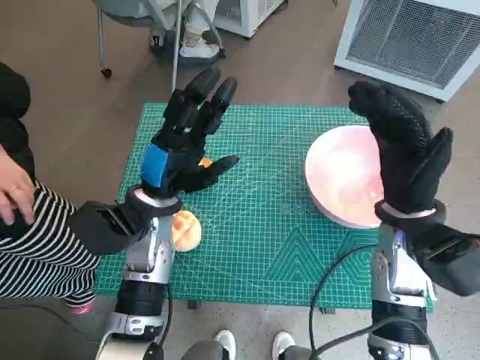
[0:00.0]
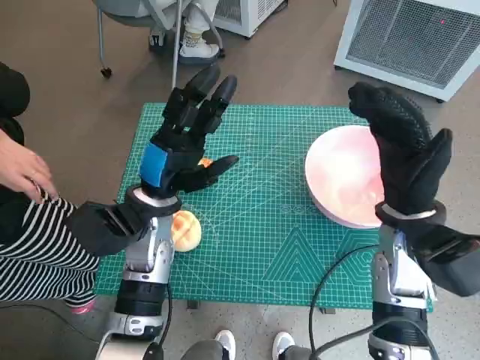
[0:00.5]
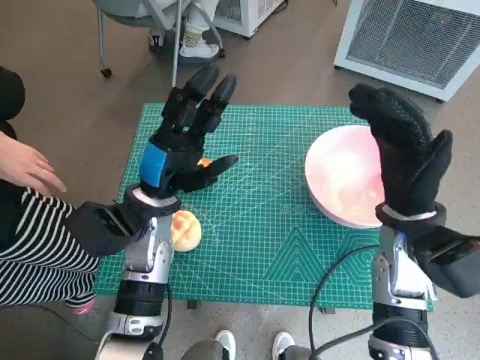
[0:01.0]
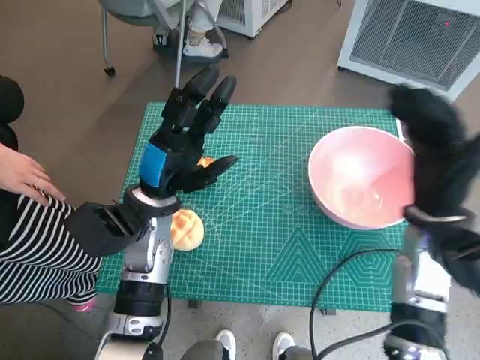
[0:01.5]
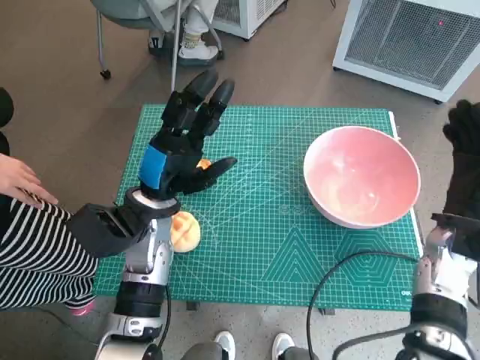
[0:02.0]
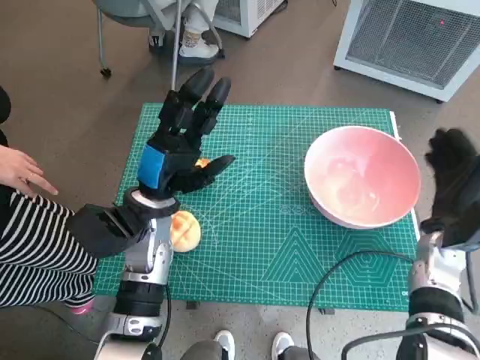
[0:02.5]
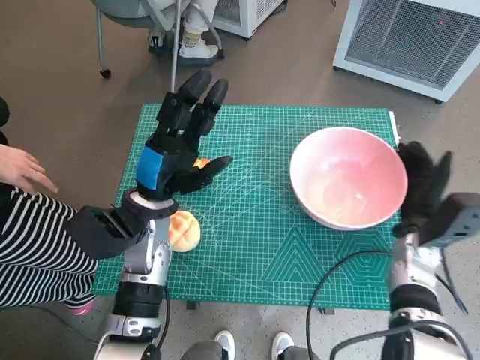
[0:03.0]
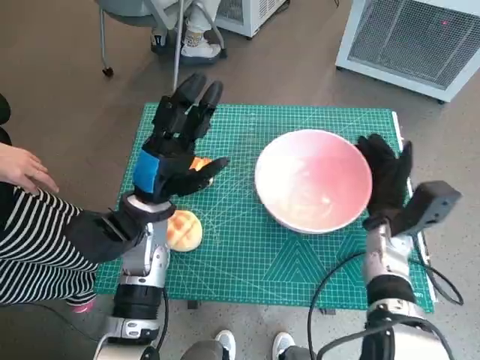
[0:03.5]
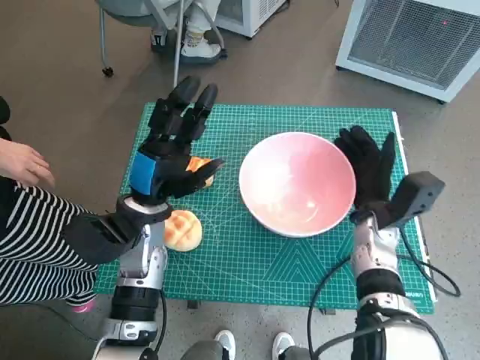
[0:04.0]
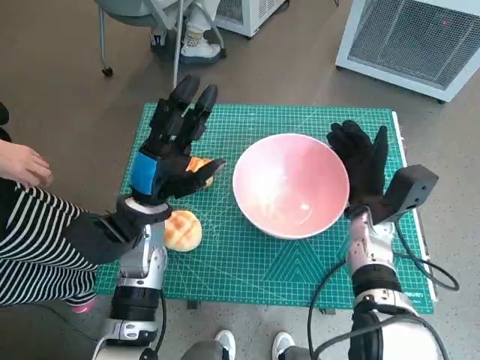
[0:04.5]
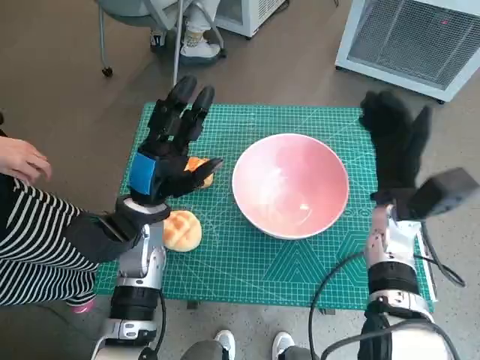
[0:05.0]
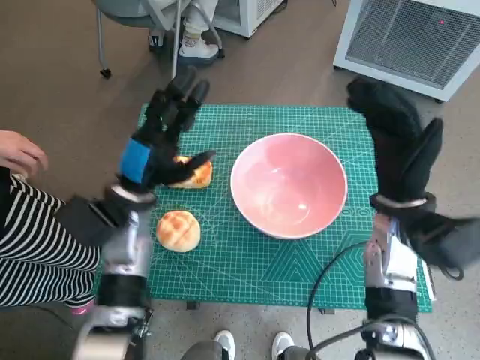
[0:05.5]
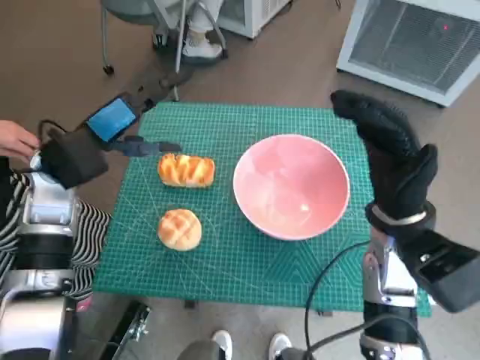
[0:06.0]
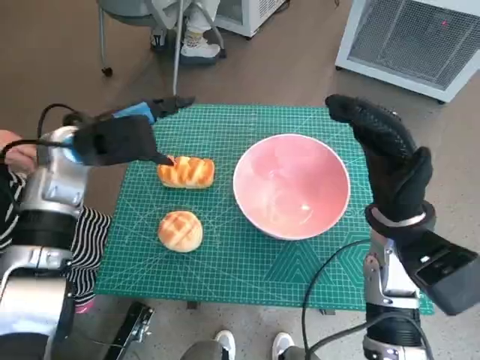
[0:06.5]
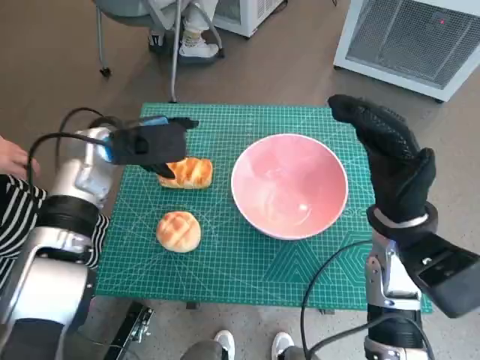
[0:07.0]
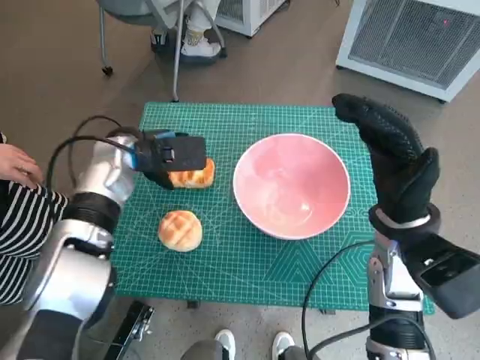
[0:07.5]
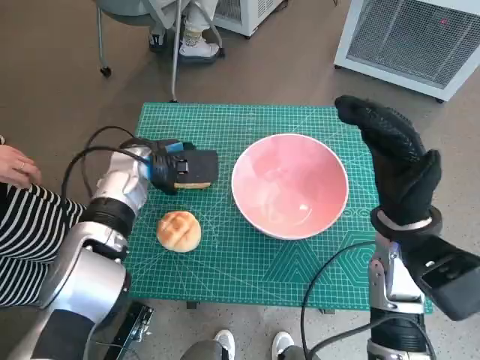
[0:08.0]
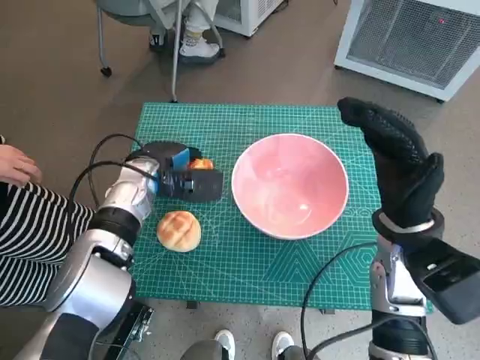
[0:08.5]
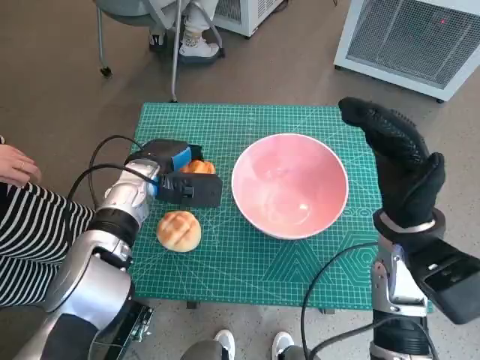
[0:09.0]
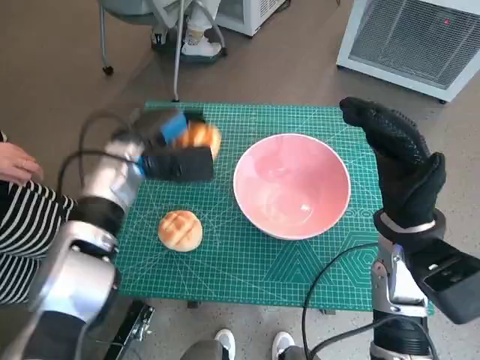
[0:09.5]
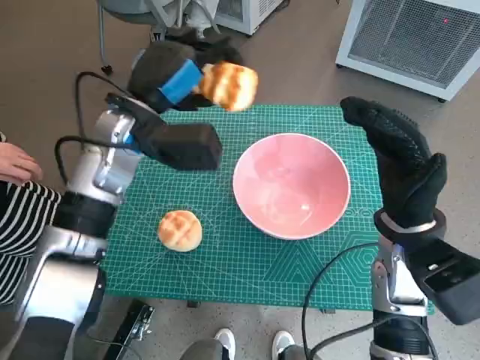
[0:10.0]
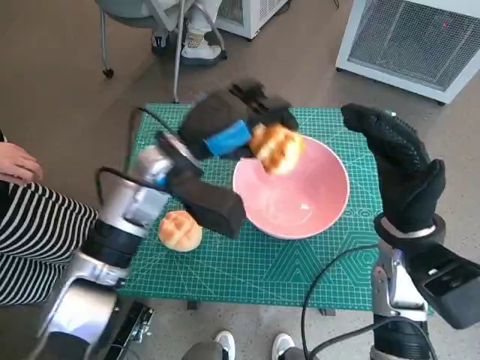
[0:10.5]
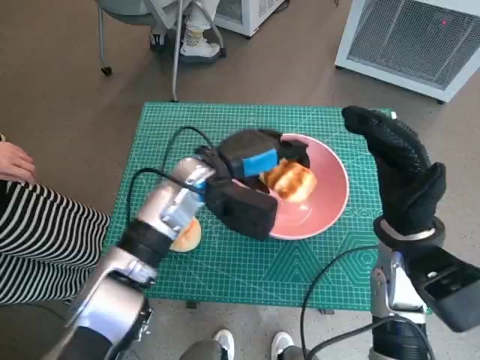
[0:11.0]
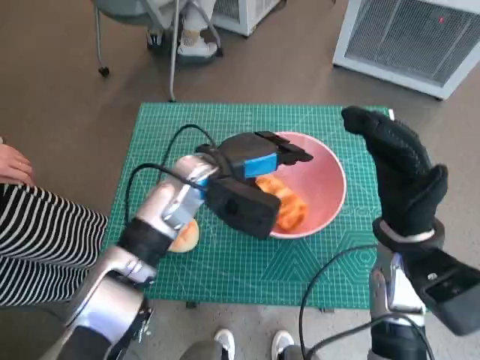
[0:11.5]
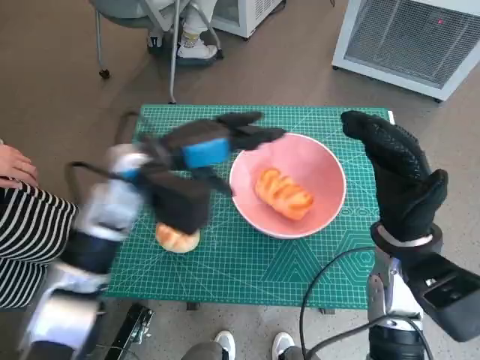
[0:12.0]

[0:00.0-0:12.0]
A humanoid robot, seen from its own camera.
Task of the whole recording: Push the bowl into the center of the table and put the bread into the bowl.
Step, 0:00.0 to 0:04.5: Move the pink bowl to the center of table with right hand.
Step, 0:05.0 to 0:08.5: Grasp the long bread with left hand.
Step, 0:09.0 to 0:11.5: Place the long bread in pink bowl with left hand.
0:02.0 to 0:04.0: The right hand goes about 10 cm to the left and downward.
0:04.0 to 0:06.0: The right hand is displaced upward by about 10 cm; the left hand moves to the left and upward, some 10 cm.
0:06.0 to 0:08.0: The left hand is displaced to the right and downward by about 10 cm.
0:08.0 to 0:10.0: The left hand moves upward, approximately 10 cm.
0:10.0 to 0:12.0: The left hand travels to the right and back again, roughly 10 cm each way.

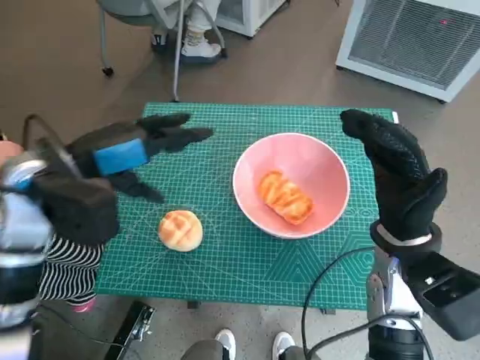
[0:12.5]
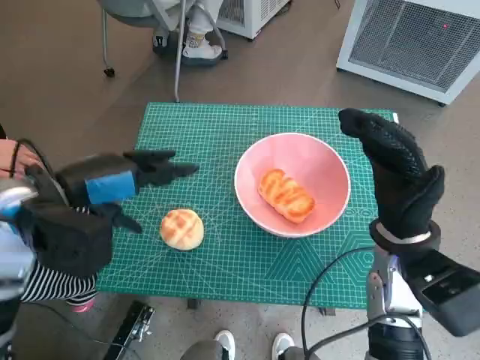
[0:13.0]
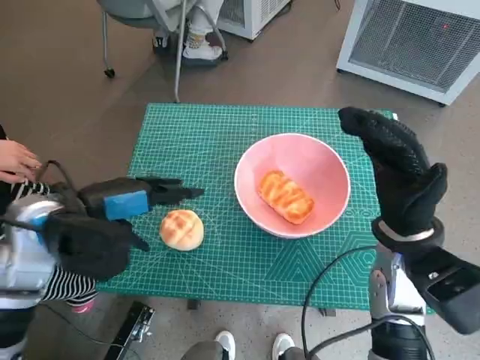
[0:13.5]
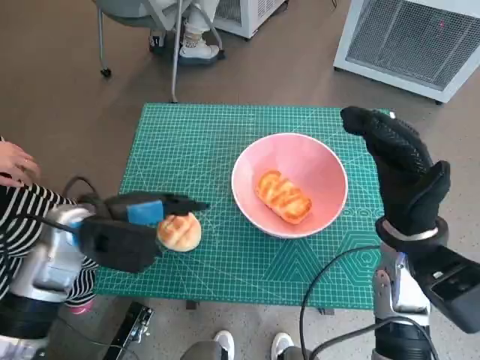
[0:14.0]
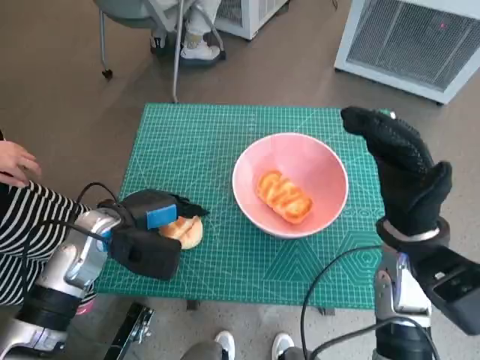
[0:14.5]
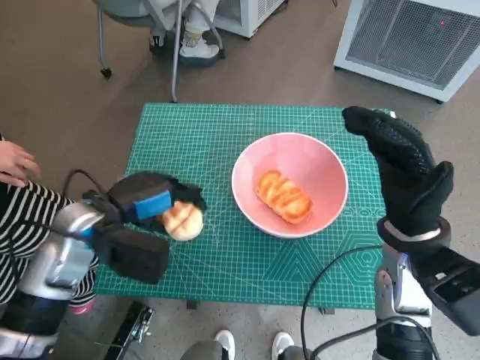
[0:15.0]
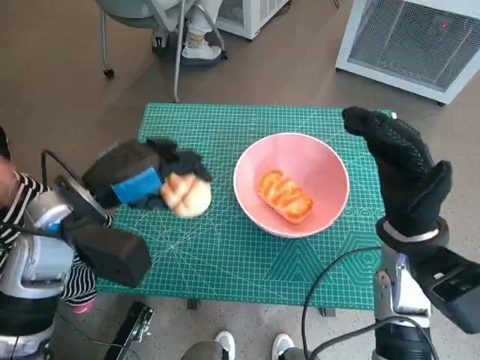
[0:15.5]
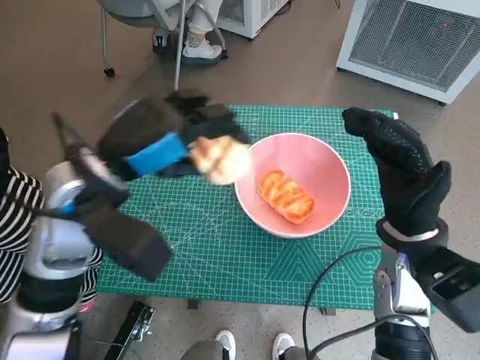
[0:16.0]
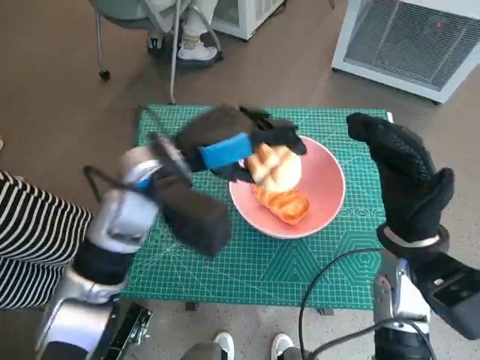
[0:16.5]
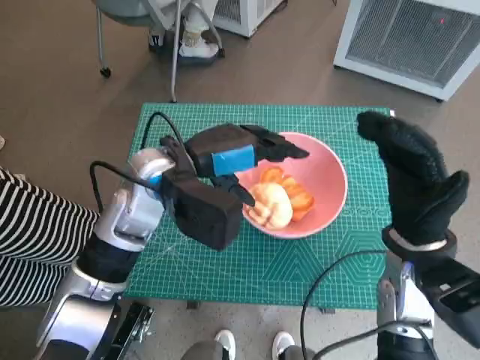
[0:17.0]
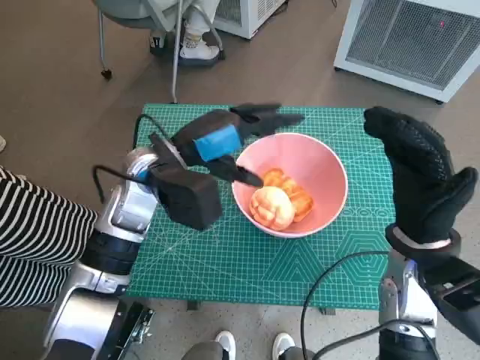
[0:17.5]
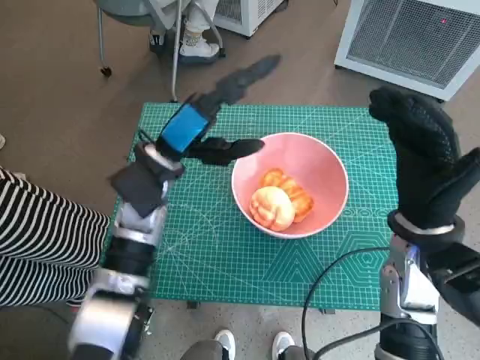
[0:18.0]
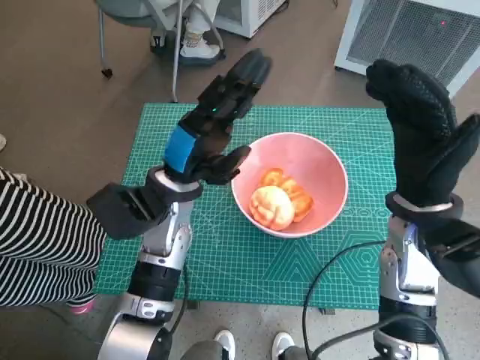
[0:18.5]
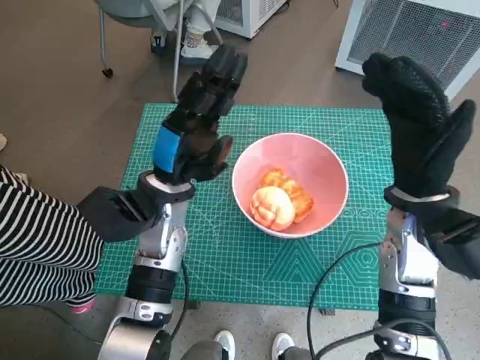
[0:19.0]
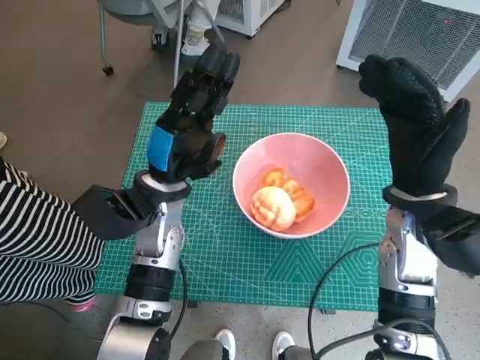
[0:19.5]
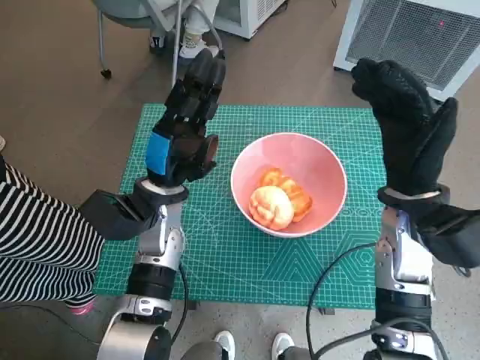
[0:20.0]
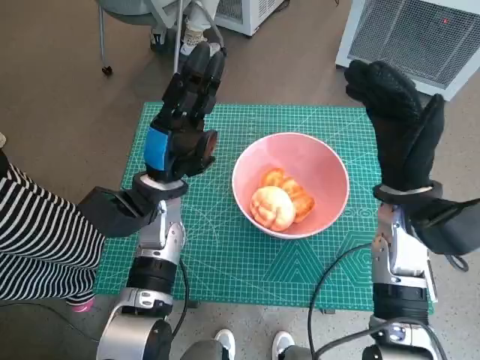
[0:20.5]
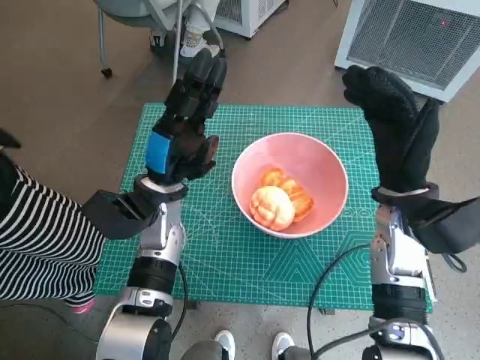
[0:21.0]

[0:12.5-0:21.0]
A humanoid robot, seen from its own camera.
Task of the whole recording: Push the bowl into the center of the table and put the bread into the bowl.
Step, 0:12.5 to 0:14.5: Grasp the round bread with left hand.
Step, 0:15.0 to 0:17.0: Place the round bread in pink bowl with left hand.
0:12.5 to 0:14.5: The left hand travels downward by roughly 10 cm.
0:14.5 to 0:16.5: The left hand goes some 15 cm upward and to the right.
0:16.5 to 0:19.0: The left hand goes roughly 10 cm downward.

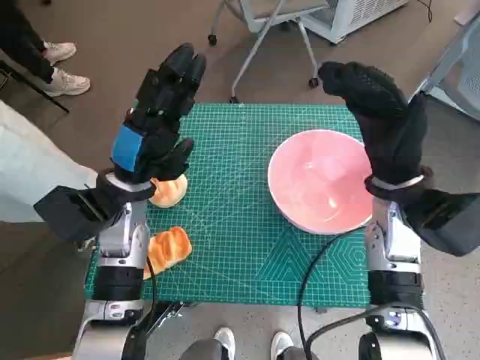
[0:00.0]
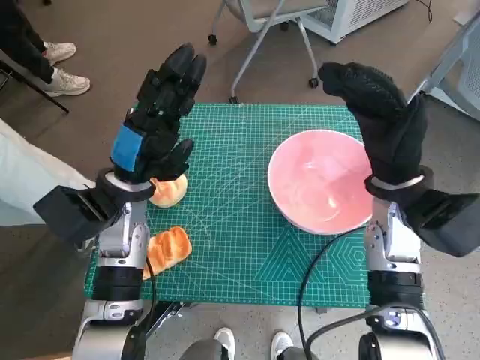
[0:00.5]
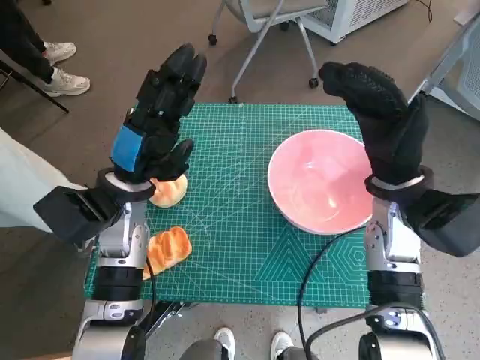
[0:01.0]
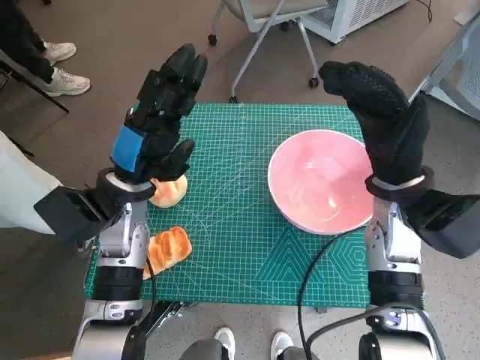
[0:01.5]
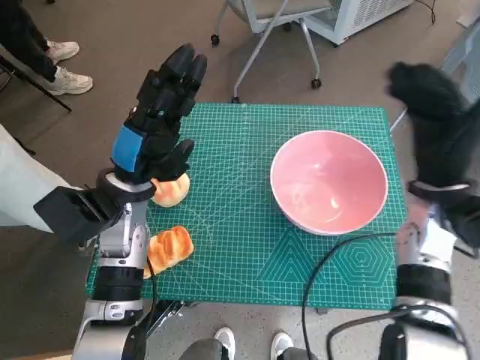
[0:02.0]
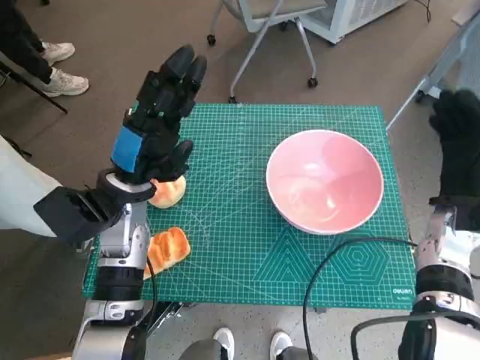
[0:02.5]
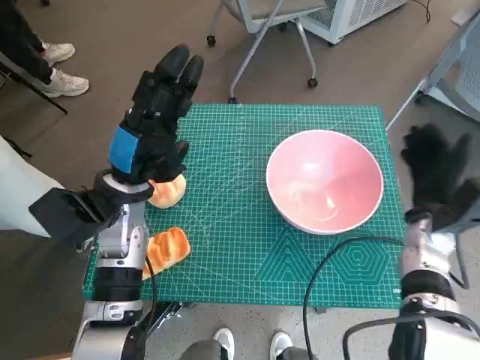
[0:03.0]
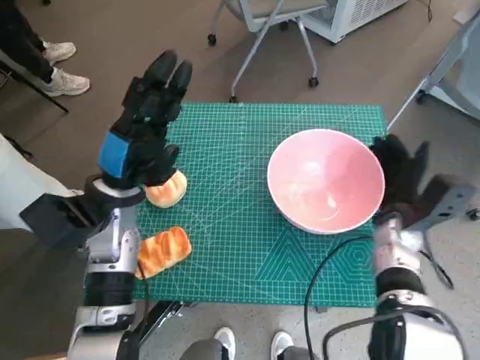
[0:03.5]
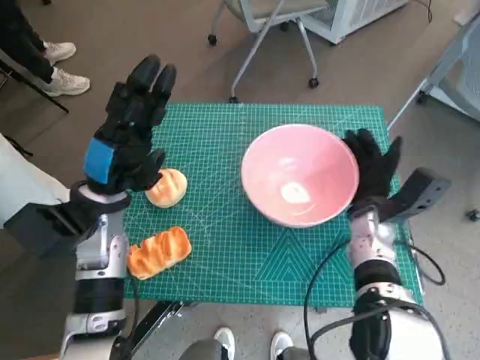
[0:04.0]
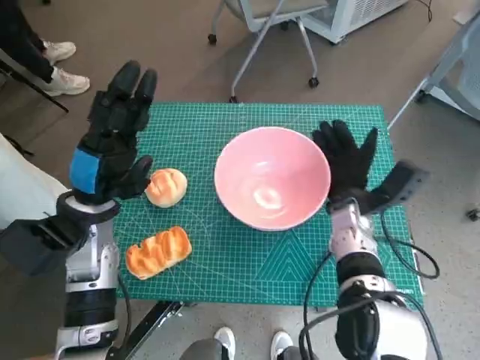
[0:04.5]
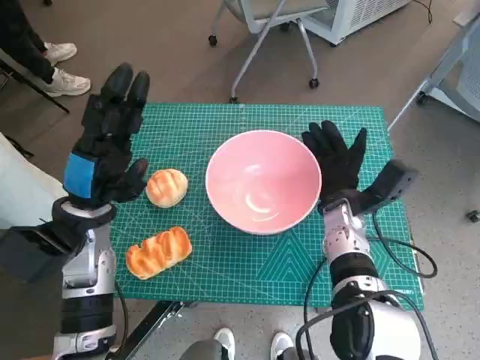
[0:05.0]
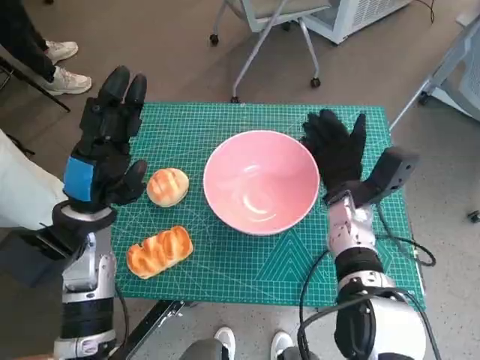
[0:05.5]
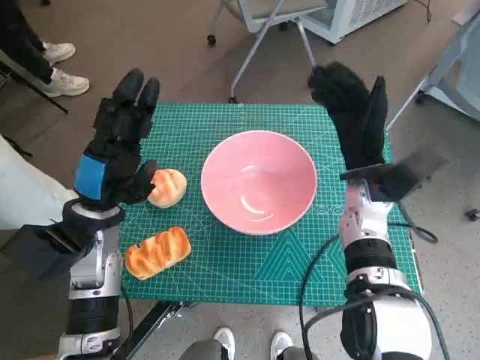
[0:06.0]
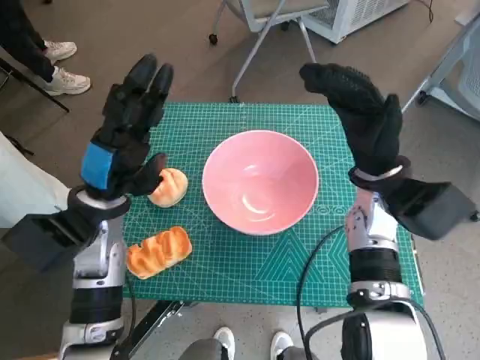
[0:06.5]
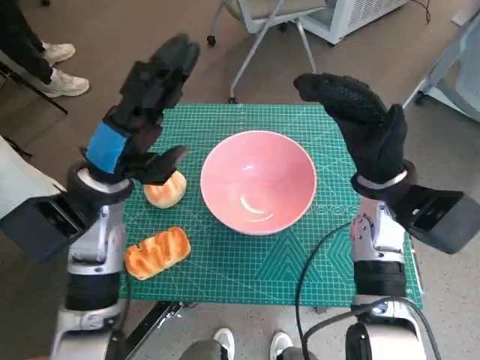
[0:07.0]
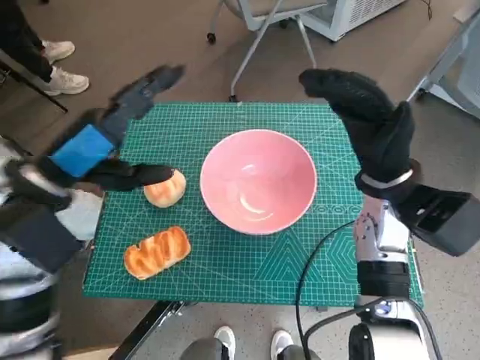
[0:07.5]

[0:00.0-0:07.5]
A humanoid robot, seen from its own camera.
Task of the whole recording: Push the bowl into the center of the table and put the bread into the bowl.
Step, 0:00.0 to 0:05.5: Move the pink bowl to the center of table with right hand.
0:02.0 to 0:04.0: The right hand is displaced downward by some 10 cm.
0:05.5 to 0:07.5: The hands both shift upward by about 10 cm.
